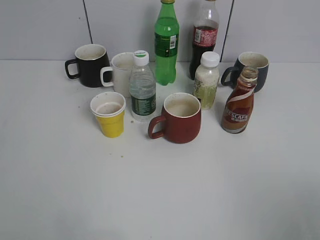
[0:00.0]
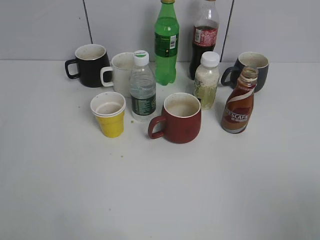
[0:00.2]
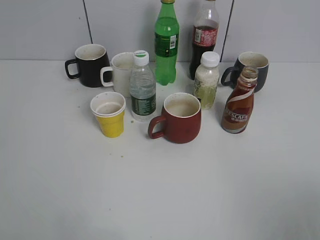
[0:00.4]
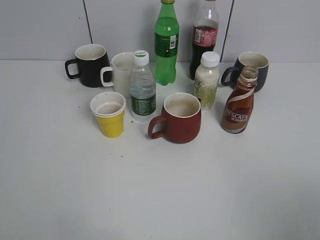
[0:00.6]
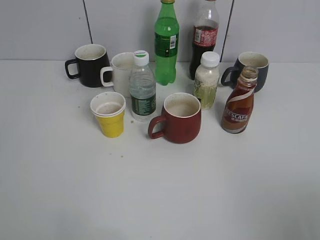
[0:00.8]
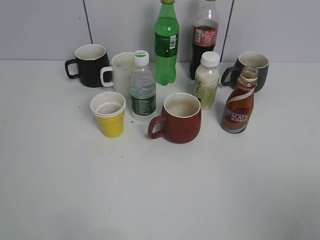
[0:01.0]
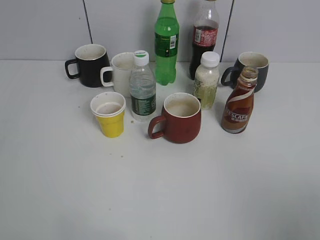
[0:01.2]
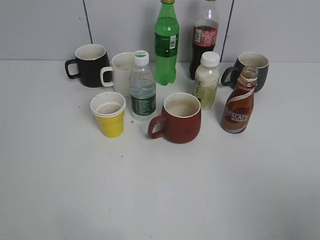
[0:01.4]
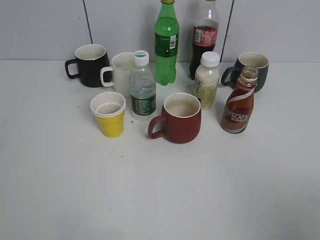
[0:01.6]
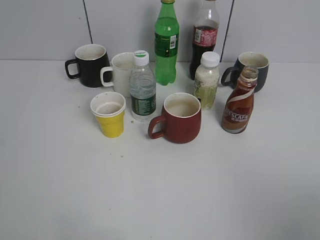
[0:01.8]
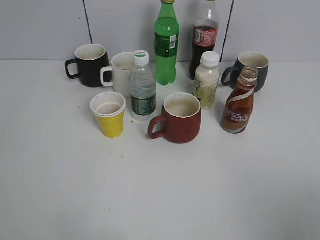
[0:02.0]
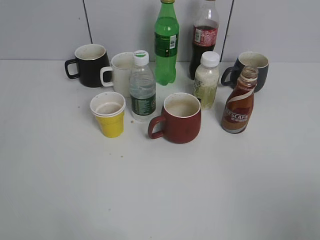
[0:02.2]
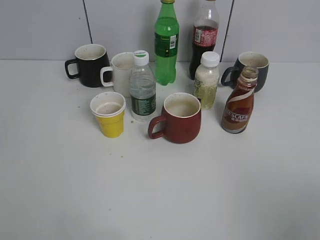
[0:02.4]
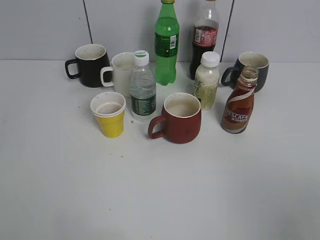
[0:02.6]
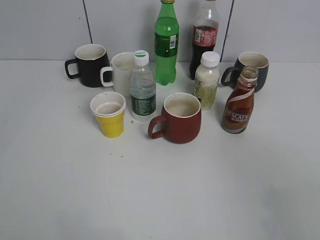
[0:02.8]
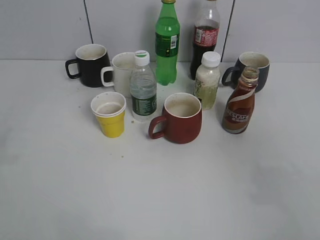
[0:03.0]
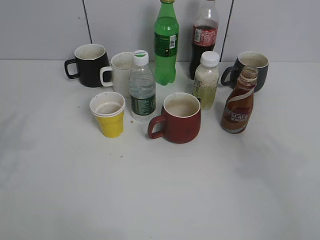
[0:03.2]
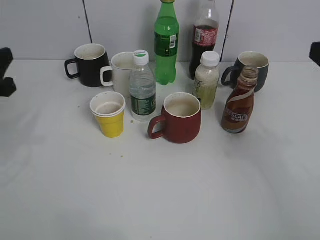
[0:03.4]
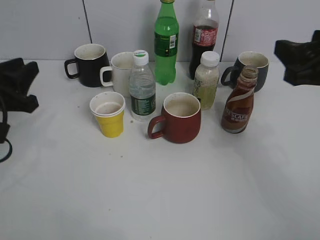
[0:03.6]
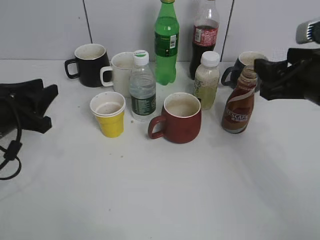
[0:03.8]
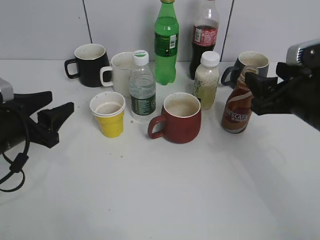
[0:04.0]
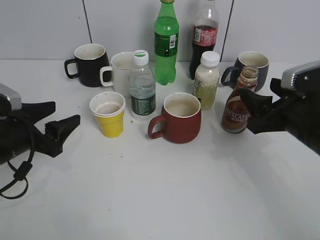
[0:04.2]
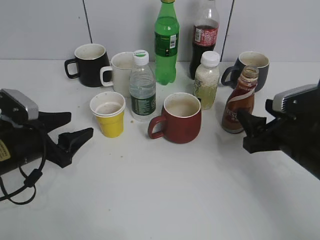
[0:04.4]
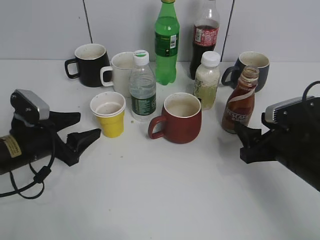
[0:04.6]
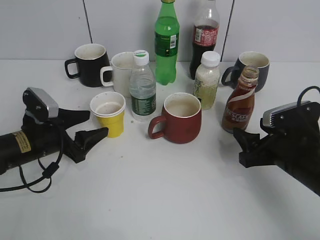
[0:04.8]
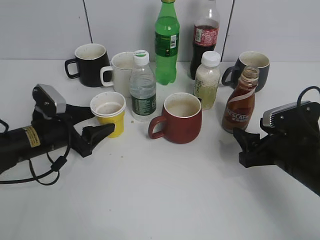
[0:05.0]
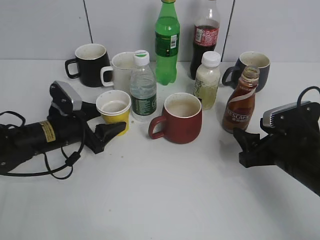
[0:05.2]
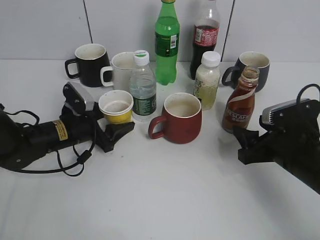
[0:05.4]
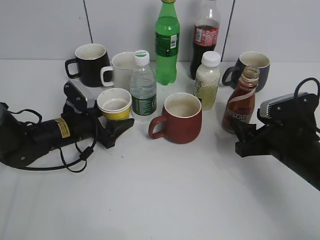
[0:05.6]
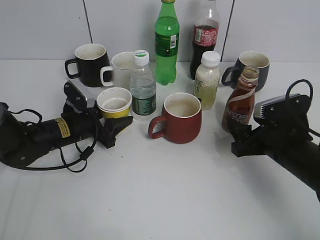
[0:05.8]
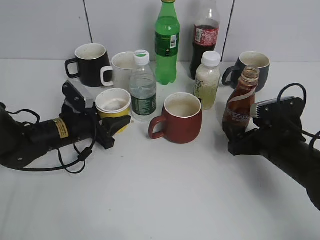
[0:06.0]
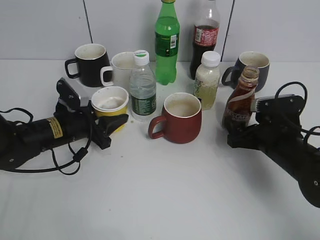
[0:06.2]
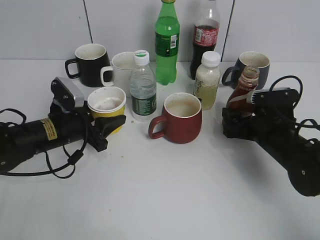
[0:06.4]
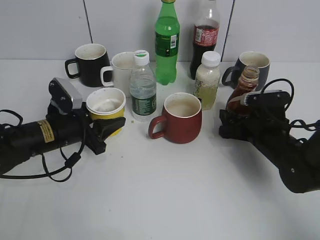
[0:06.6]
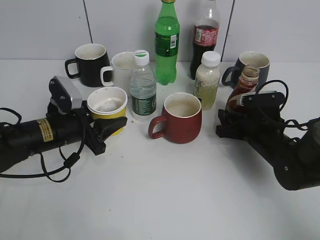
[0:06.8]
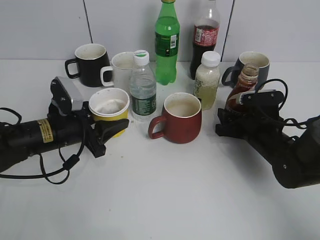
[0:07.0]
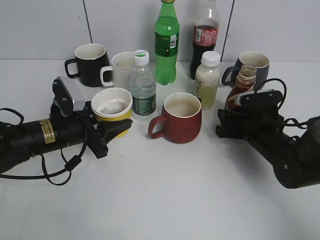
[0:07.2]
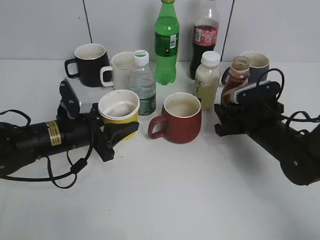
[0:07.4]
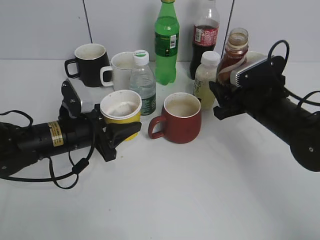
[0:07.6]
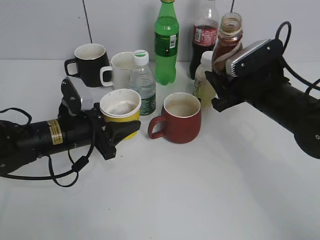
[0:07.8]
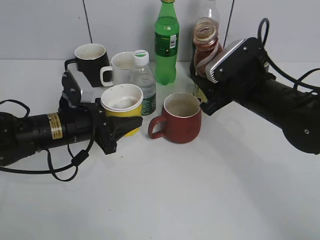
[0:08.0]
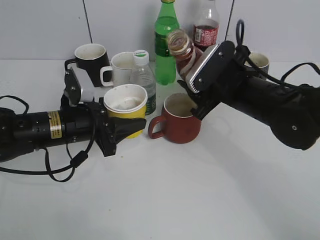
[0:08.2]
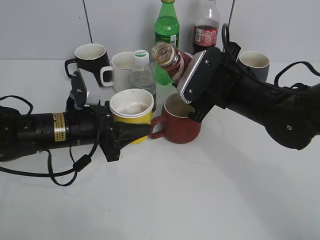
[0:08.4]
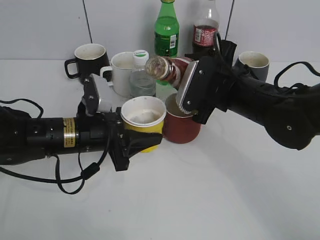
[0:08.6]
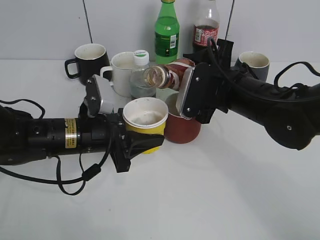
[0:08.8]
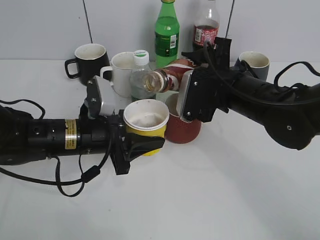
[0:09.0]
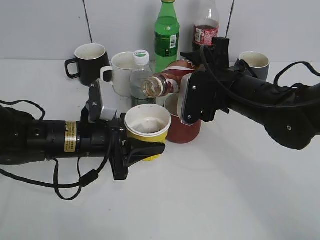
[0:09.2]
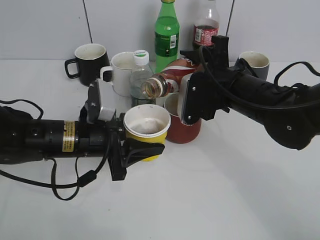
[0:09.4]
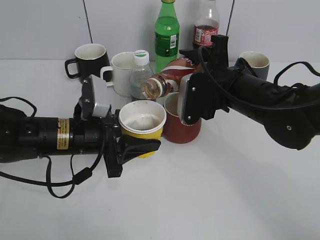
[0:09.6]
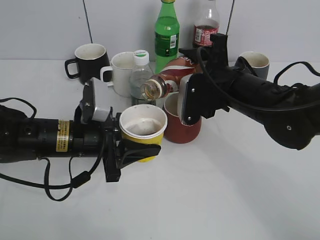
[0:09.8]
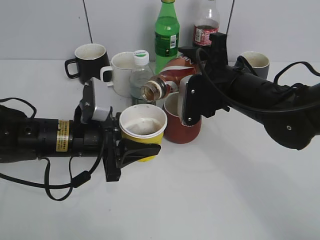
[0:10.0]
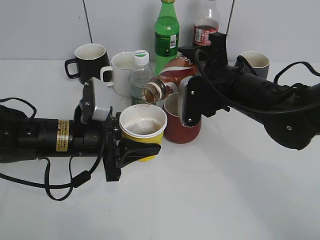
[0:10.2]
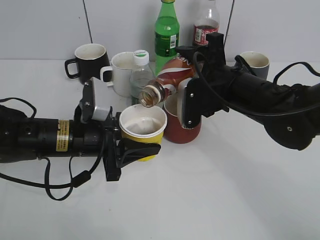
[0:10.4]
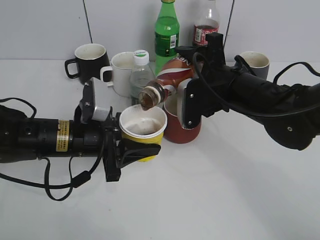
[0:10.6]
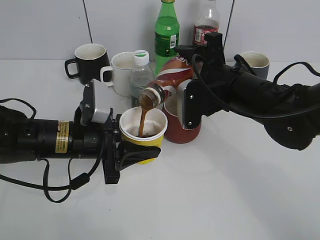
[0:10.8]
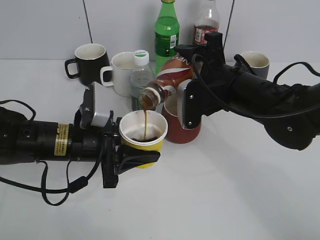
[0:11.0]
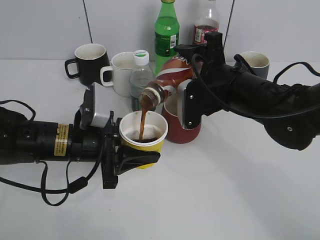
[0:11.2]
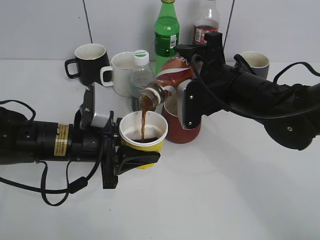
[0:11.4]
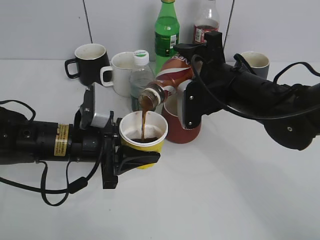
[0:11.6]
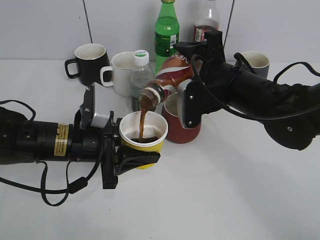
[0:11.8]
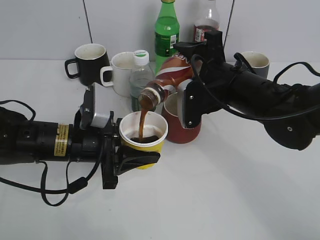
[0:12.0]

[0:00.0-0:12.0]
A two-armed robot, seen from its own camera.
Step, 2.2 to 5.4 s: Grasp the yellow paper cup with left gripper.
Step, 5.6 to 6.6 s: Grasp the bottle with coffee with right gripper.
1.6 to 3.0 s: The right gripper shifts roughly 10 cm forward, and closes its fingers.
3.0 to 4.4 s: The grippers both shift downward and forward by approximately 25 cm. The left gripper opens its fingers.
4.4 to 6.0 s: The right gripper heads downward, covering roughly 5 cm, and opens its fingers, while the left gripper moves forward, to the right and downward, approximately 10 cm, and closes.
6.0 to 7.6 s: The right gripper is displaced forward by about 5 cm, and closes. Meanwhile the left gripper travels backward by about 5 cm.
7.6 to 9.0 s: The left gripper changes place by some 5 cm, while the right gripper shifts roughly 5 cm to the left.
9.0 to 10.4 s: There are only small adjustments of the grippers.
10.4 to 12.0 s: The two grippers keep their place.

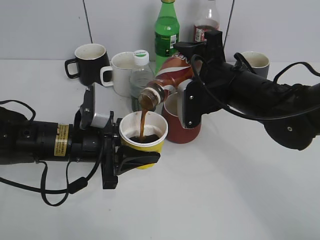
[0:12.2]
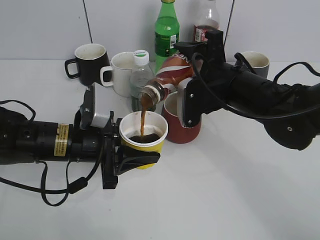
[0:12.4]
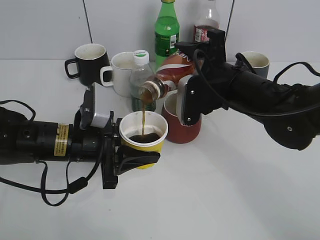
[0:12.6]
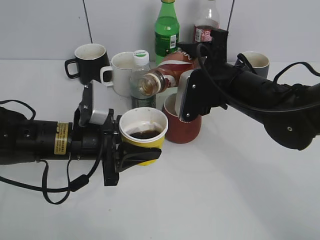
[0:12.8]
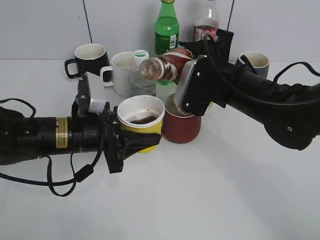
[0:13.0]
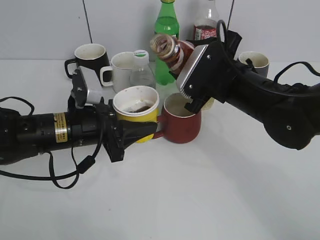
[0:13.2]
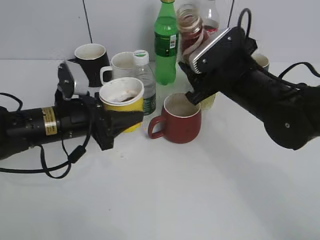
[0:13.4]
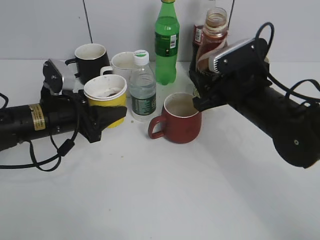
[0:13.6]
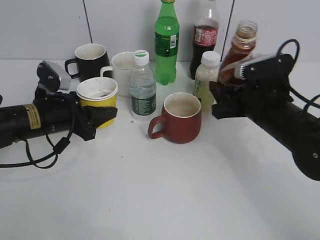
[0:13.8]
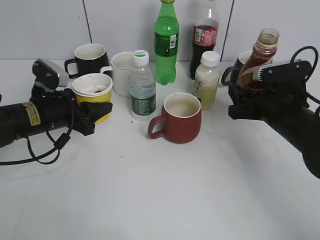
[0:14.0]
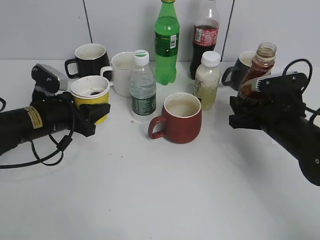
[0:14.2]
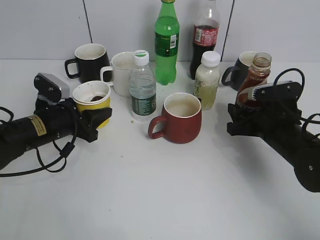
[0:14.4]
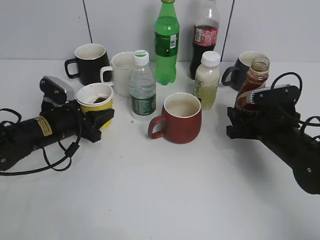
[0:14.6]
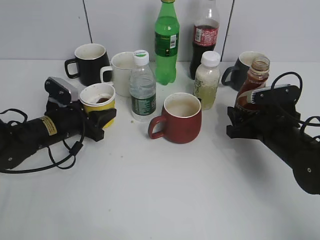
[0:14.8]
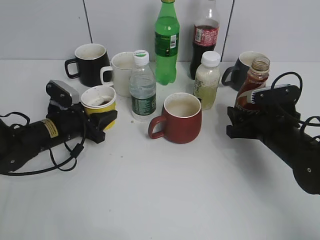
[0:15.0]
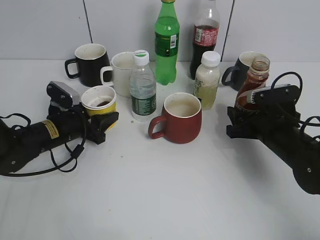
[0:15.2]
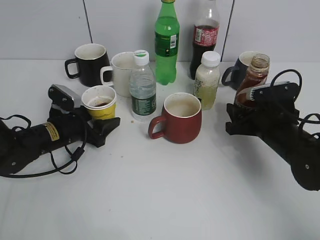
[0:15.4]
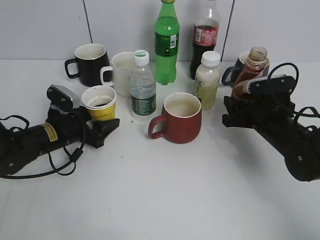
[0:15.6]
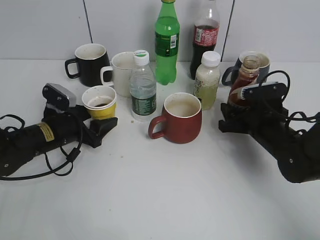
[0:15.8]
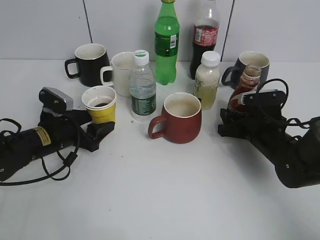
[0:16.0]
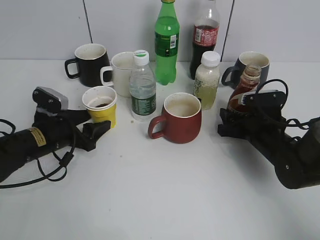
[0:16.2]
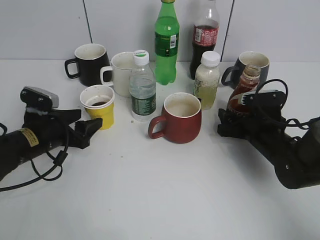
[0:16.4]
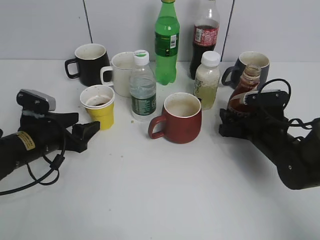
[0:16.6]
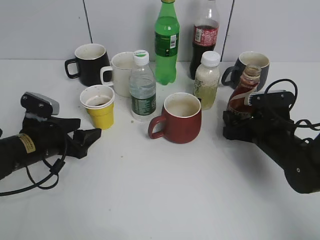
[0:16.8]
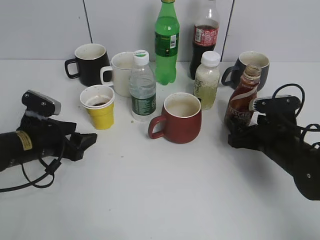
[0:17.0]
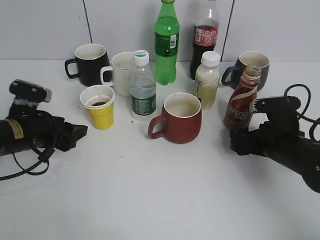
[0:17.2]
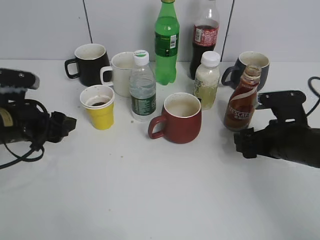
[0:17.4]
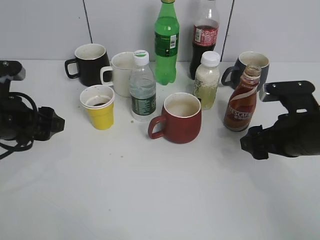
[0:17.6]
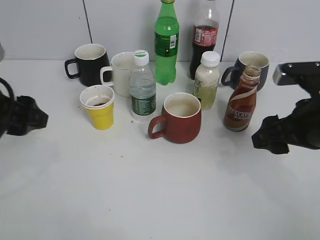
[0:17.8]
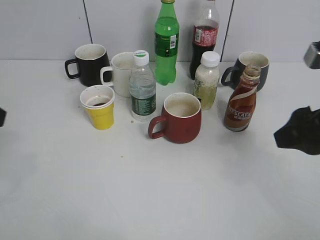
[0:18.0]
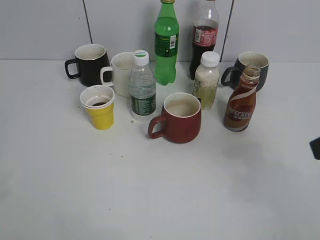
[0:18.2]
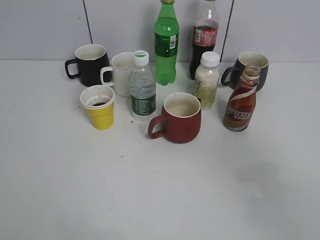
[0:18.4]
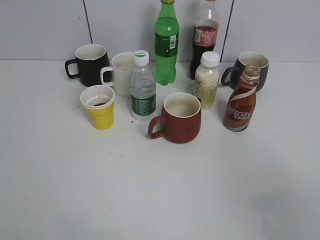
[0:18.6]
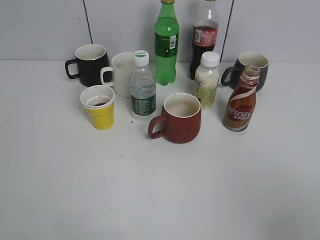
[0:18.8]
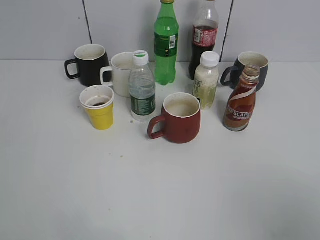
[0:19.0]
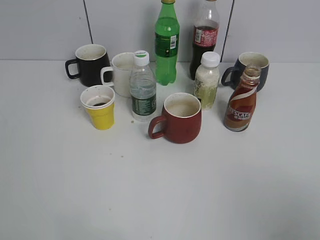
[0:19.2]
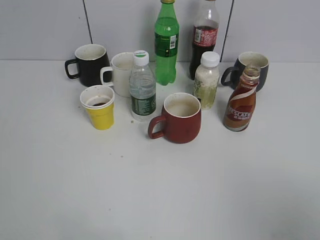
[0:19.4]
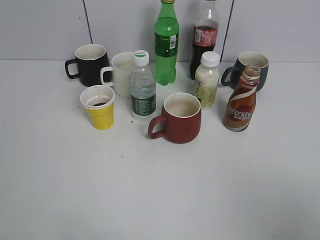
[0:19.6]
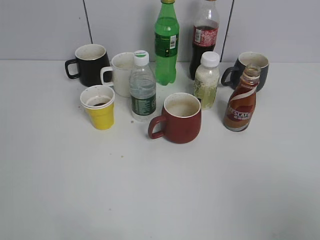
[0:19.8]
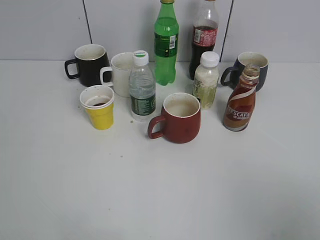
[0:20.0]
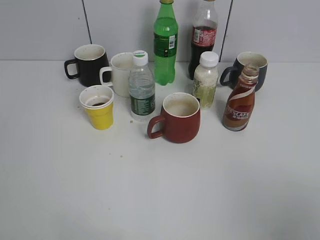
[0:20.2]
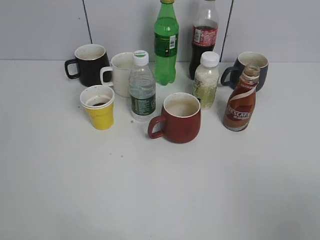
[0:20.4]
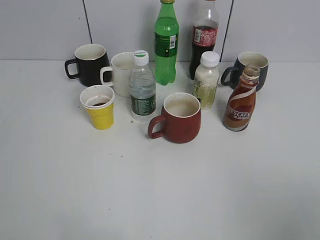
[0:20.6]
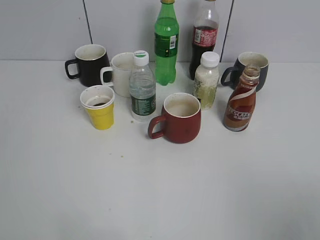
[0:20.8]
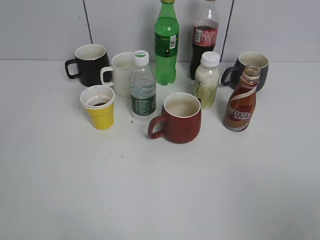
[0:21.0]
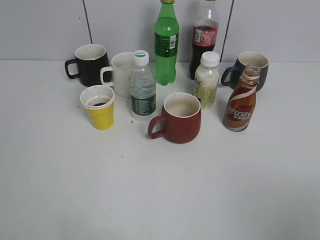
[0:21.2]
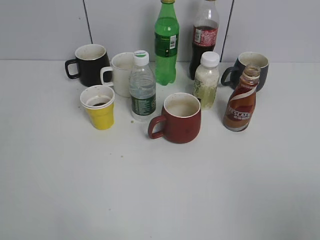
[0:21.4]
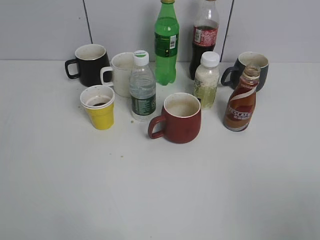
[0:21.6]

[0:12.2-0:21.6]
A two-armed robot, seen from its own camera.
Step, 13.6 to 16.8 s: Place the coffee bottle on the table with right gripper.
12.2 to 13.8 s: The left gripper goes about 10 cm to the left and forward. The right gripper shifts some 5 cm to the right.
13.8 to 15.4 s: The two grippers go approximately 5 cm downward. The left gripper opens.
15.4 to 17.0 s: The right gripper opens, while the left gripper is displaced backward by some 5 cm.
17.0 to 18.4 s: Both grippers move upward and backward, some 30 cm.
18.4 to 20.0 s: The right gripper shifts some 10 cm backward.

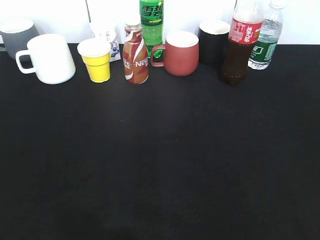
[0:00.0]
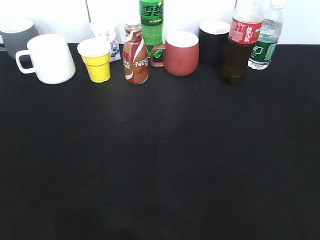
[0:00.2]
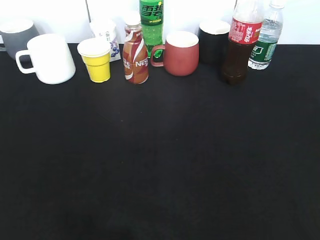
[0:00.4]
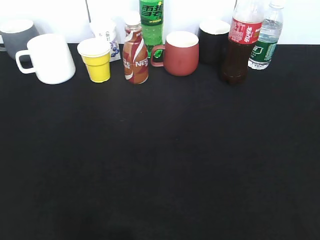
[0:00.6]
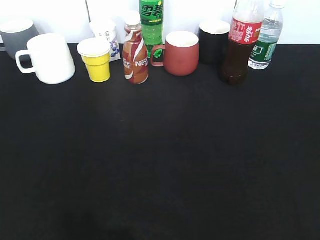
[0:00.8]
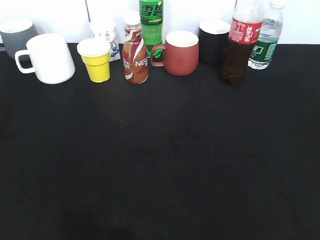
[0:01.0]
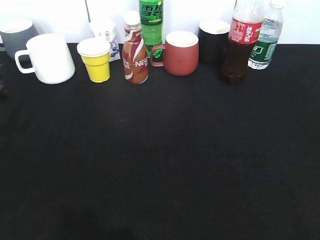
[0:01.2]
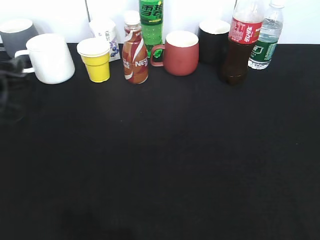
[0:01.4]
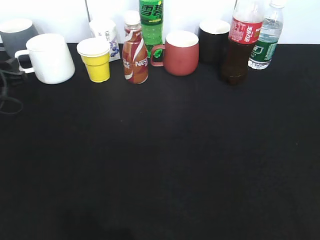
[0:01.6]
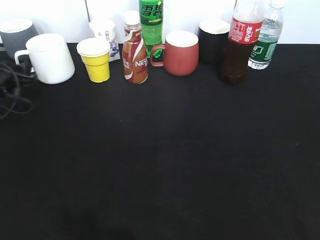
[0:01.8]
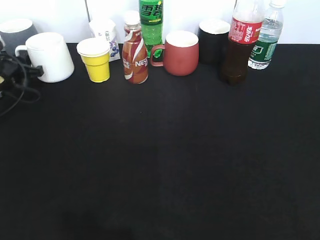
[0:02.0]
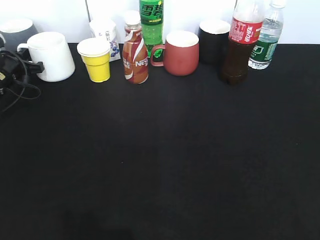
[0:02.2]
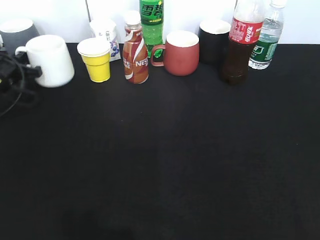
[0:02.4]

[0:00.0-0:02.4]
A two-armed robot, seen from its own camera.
Step, 0.0 to 2.2 s: Grasp the white cup with left gripper.
0.0 to 1.2 s: The left gripper travels forward and downward by about 30 cm.
1.2 to 2.4 s: The left gripper shifts about 15 cm forward, and closes.
